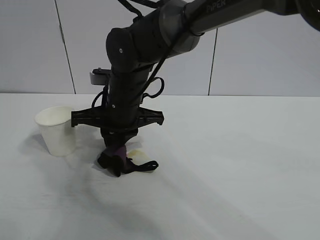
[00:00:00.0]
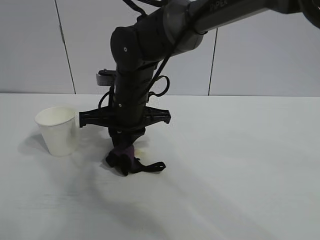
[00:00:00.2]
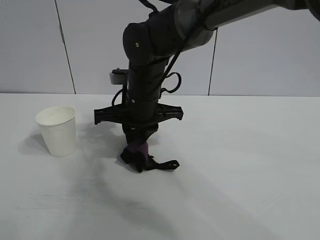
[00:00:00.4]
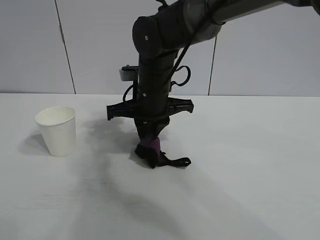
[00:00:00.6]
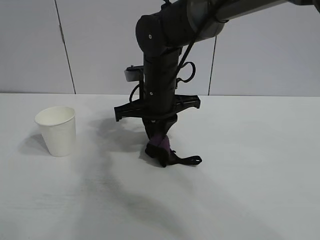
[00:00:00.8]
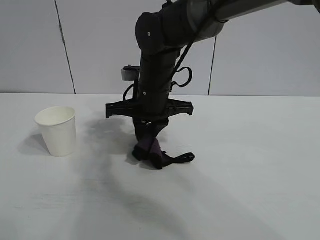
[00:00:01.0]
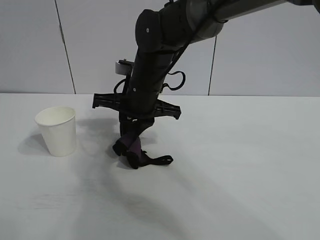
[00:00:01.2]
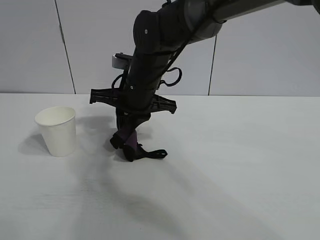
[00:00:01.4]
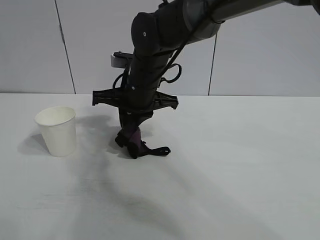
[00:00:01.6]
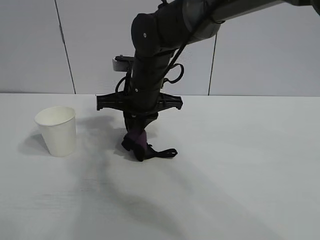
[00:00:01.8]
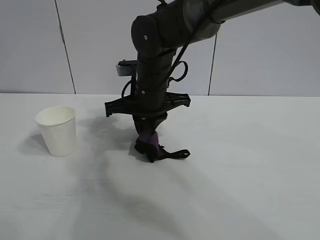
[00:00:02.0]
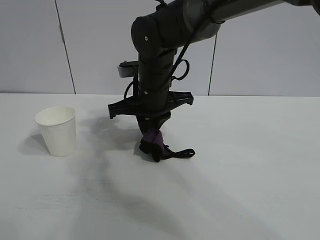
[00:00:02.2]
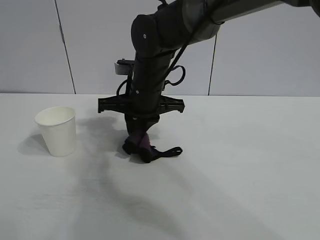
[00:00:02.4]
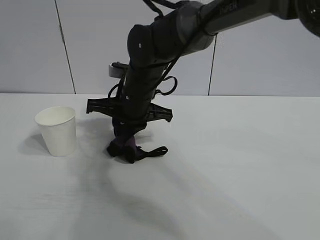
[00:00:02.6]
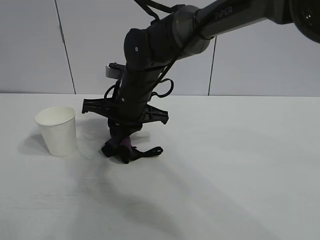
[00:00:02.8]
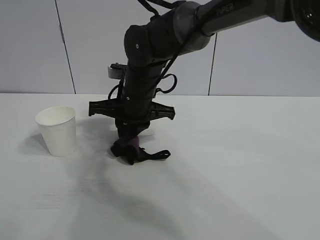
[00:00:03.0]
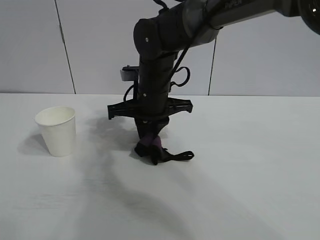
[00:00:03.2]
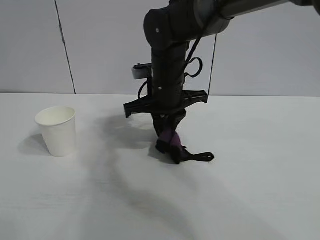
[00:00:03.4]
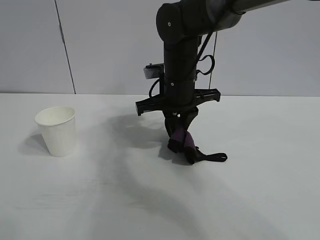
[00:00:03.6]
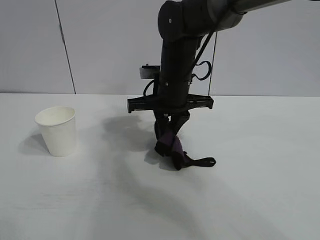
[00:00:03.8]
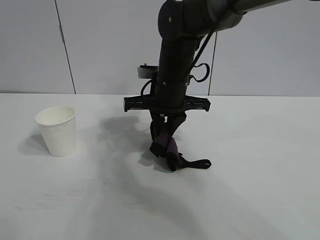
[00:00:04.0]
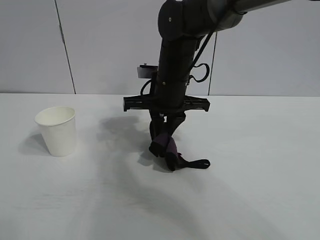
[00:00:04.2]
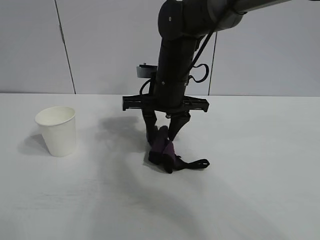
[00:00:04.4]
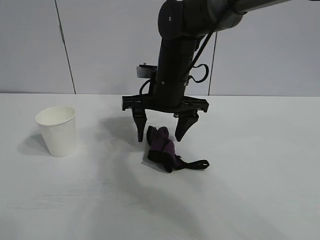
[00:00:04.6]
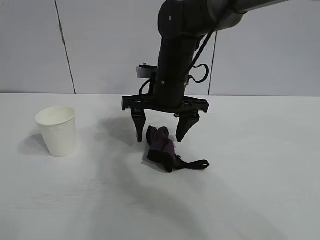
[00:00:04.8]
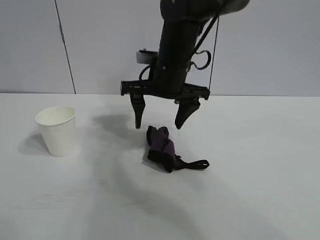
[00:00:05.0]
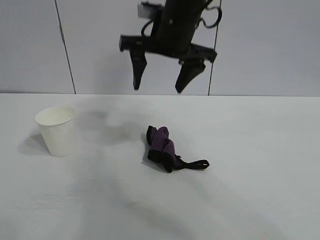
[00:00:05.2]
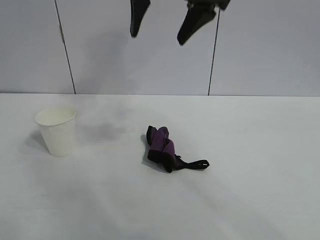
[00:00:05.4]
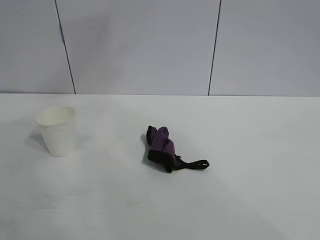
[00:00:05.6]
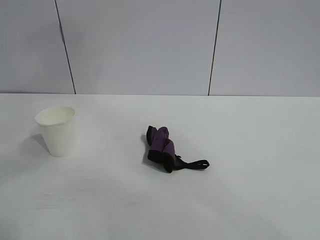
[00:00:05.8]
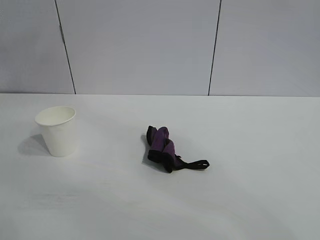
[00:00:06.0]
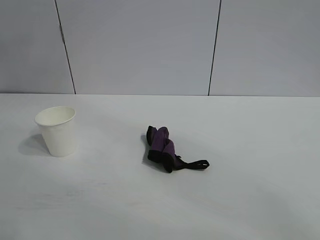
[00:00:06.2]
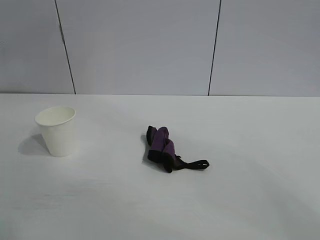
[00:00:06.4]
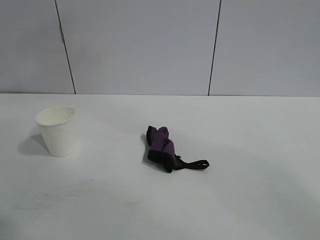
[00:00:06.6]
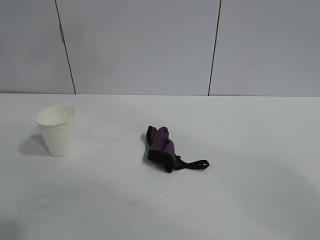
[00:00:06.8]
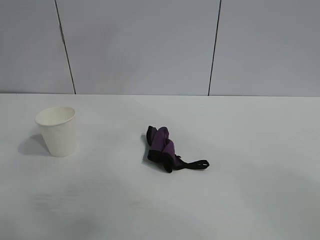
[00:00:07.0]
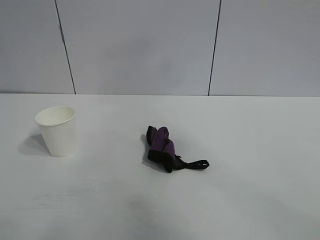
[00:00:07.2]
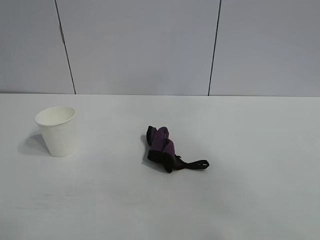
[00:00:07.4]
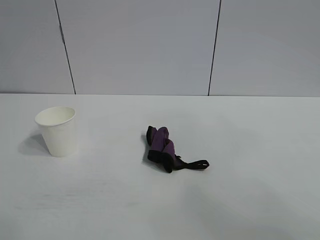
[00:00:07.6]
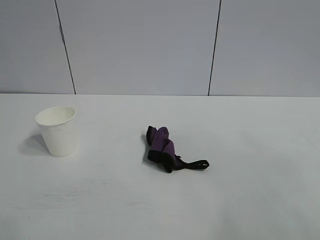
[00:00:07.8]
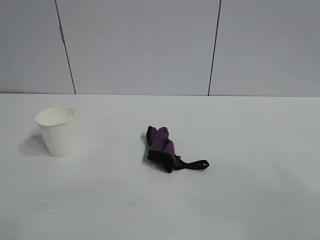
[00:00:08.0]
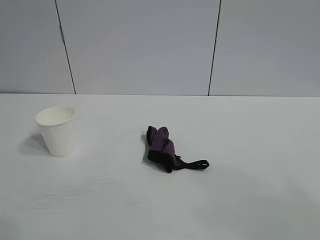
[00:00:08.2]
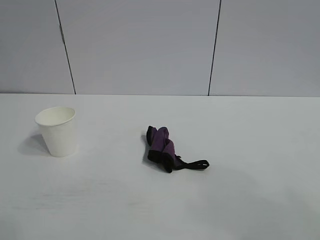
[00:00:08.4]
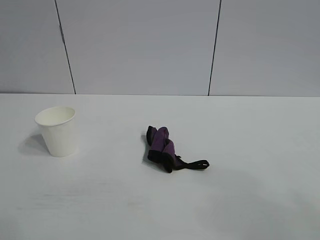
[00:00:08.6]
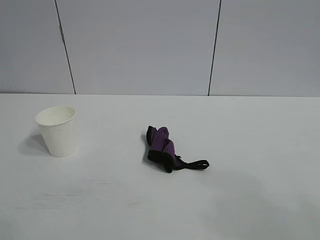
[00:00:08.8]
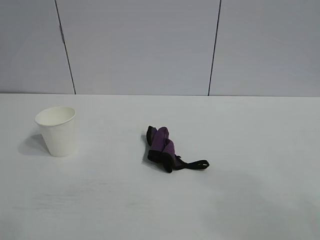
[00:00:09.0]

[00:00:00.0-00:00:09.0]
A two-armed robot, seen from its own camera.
Task of the whole recording: the left gripper pick up the fallen cup and place it upright, the right gripper grasp the black rag and wipe the stain on the table, the right gripper put the black rag back in its original position.
Step, 00:00:00.0 to 00:00:03.8: Wipe the stains off the table with the rag with right gripper.
Step, 00:00:04.0 to 00:00:04.4: Place the rag on the table with right gripper.
